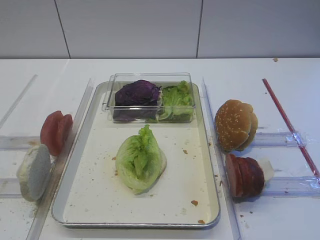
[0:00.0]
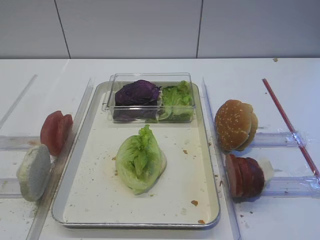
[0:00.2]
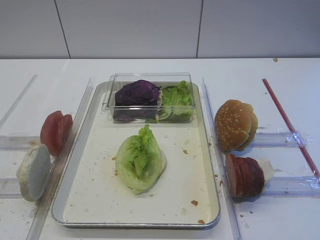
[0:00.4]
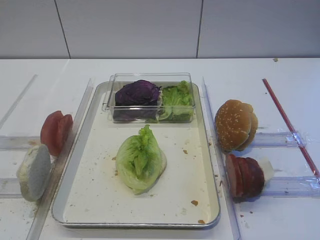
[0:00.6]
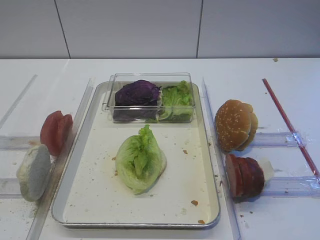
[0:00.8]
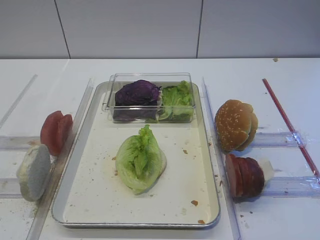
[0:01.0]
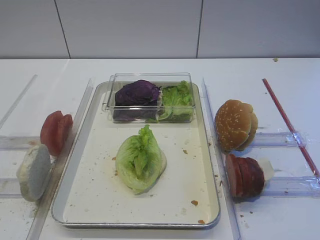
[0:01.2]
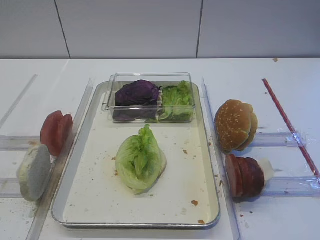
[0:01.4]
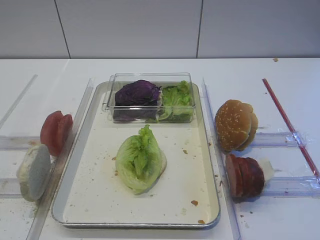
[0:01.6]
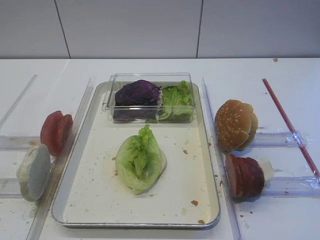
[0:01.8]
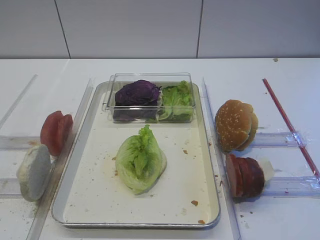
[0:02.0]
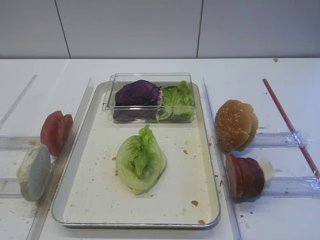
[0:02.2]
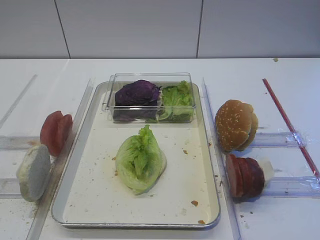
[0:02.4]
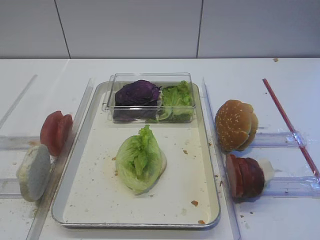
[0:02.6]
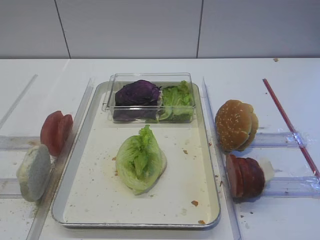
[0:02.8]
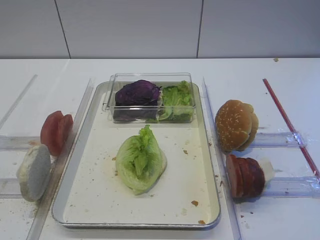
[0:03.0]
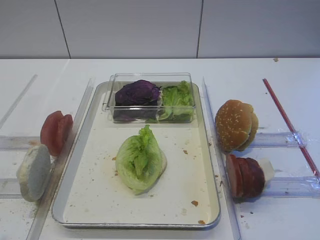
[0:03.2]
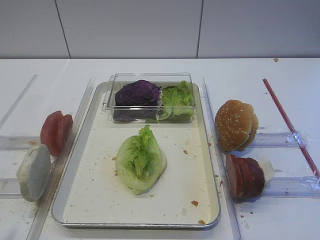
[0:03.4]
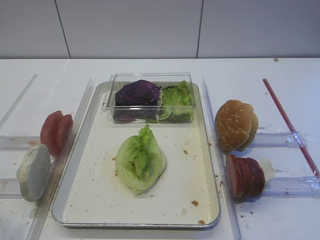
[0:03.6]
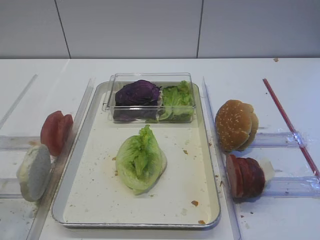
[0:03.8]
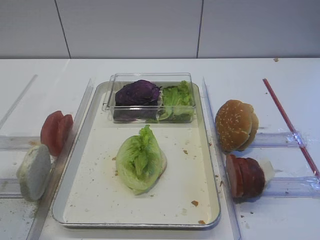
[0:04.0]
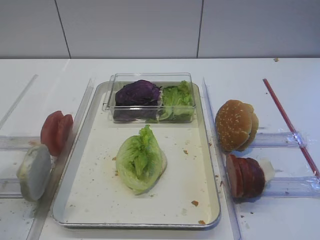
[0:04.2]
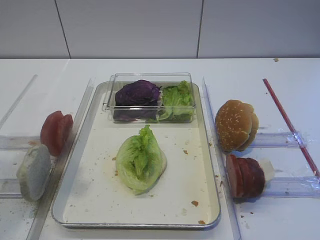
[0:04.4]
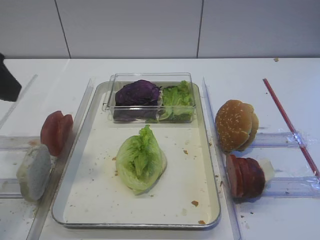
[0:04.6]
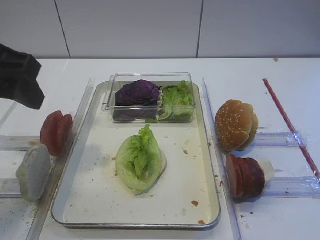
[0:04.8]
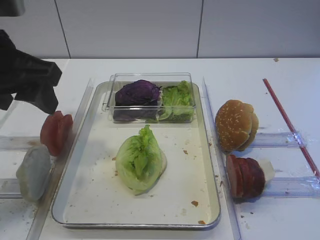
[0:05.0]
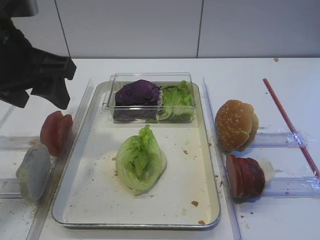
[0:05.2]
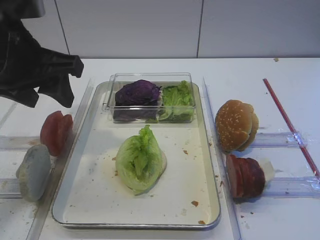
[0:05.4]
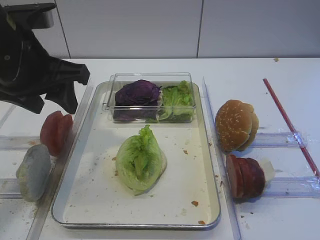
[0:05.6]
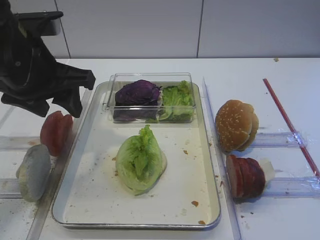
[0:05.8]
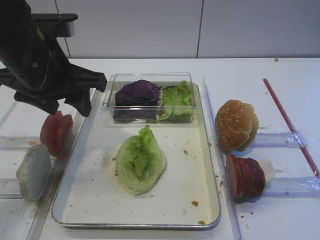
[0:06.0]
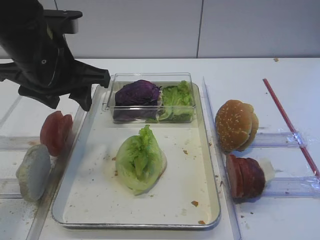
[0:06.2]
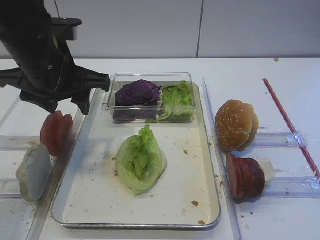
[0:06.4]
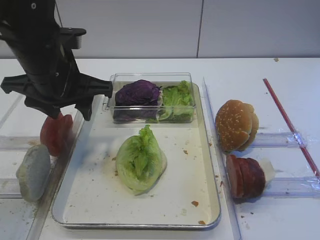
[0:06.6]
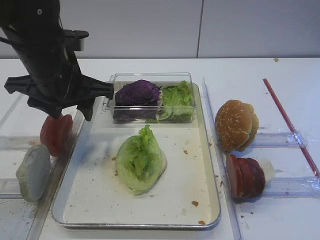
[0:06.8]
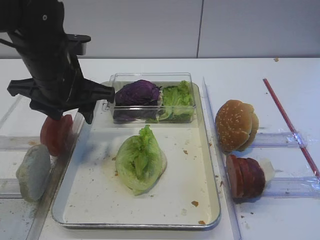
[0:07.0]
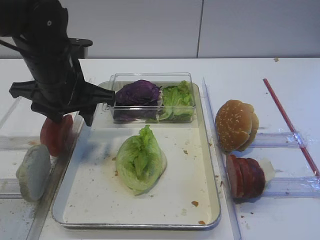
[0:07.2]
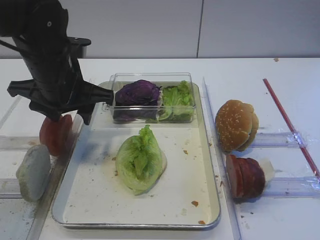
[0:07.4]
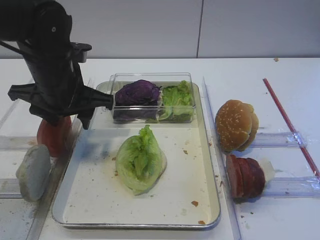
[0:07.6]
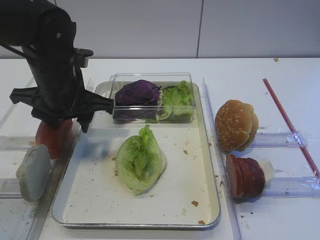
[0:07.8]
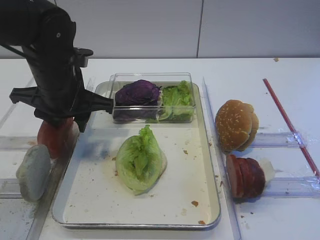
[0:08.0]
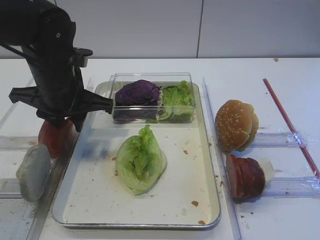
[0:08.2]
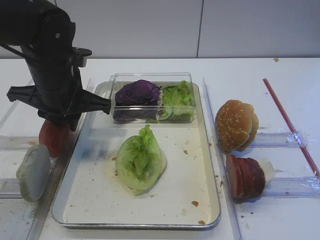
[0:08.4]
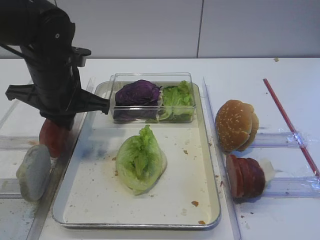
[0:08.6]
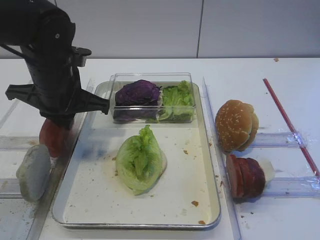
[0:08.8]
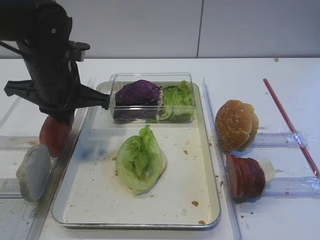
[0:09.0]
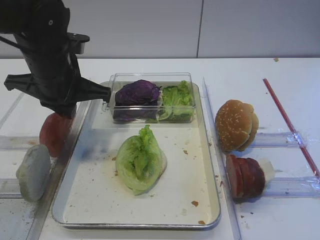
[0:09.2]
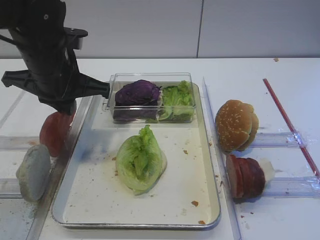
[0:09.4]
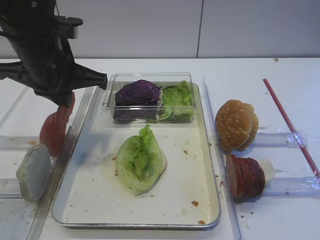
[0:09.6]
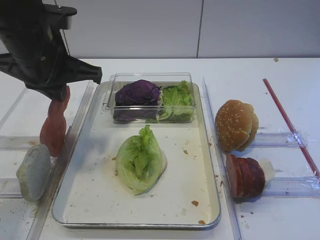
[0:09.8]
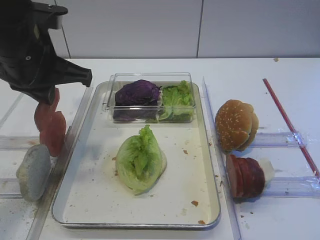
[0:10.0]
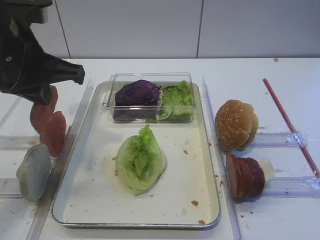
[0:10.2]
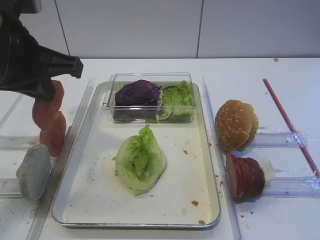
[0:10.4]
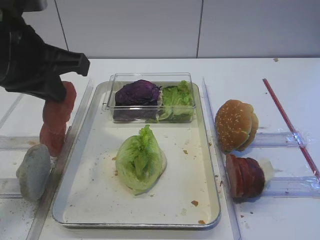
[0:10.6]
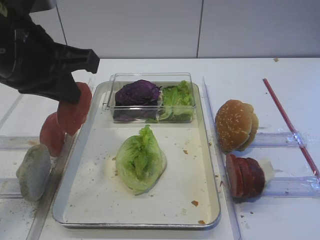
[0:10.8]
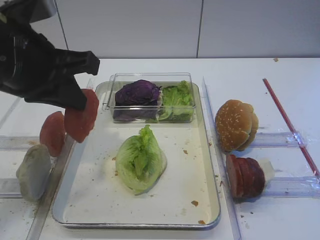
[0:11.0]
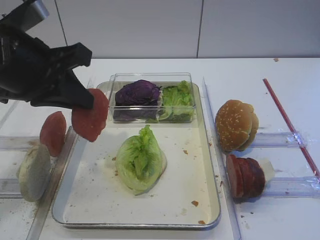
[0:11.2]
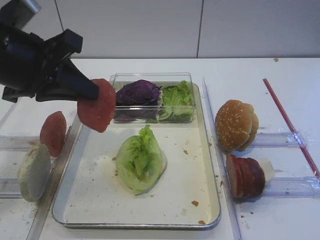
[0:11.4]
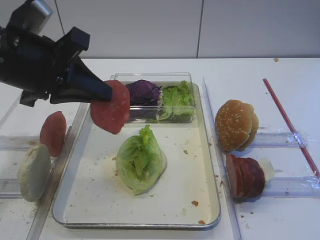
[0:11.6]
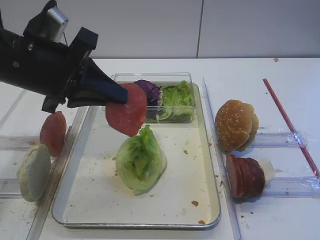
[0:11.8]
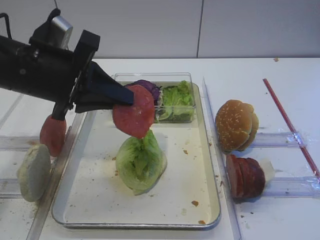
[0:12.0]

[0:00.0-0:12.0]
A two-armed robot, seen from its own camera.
Step, 0:00.0 to 0:09.4: Pick up the tomato slice with the left gripper.
0:01.6 to 0:03.0: Both grippers stay put.
0:03.0 to 0:04.4: The left gripper heads forward and upward, covering approximately 20 cm.
0:04.4 to 0:06.0: The left gripper is displaced forward, downward and to the right by approximately 20 cm.
0:06.0 to 0:07.6: The left gripper shifts about 5 cm downward.
0:07.6 to 0:09.0: The left gripper closes.
0:09.0 to 0:10.4: The left gripper heads upward and backward, covering roughly 10 cm.
0:10.4 to 0:12.0: The left gripper moves downward, roughly 5 cm.

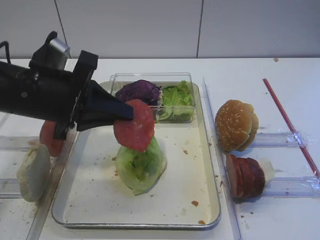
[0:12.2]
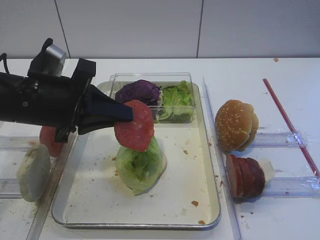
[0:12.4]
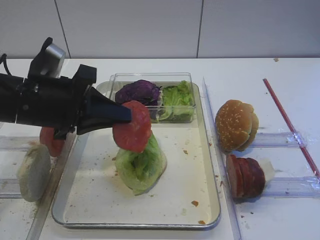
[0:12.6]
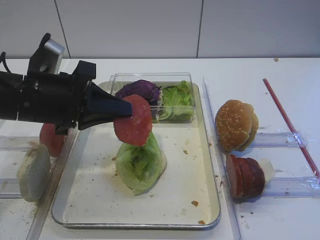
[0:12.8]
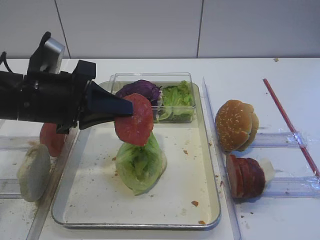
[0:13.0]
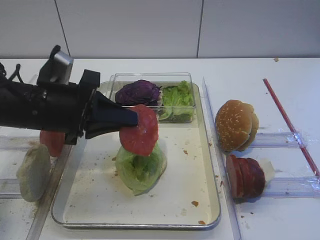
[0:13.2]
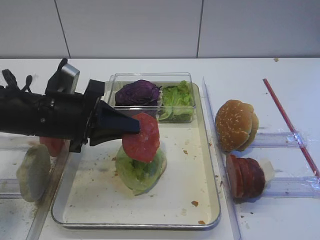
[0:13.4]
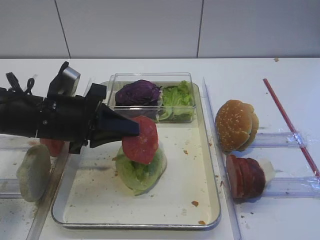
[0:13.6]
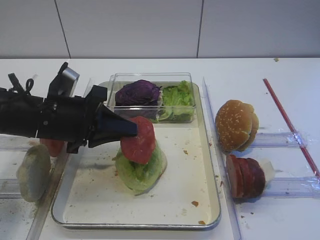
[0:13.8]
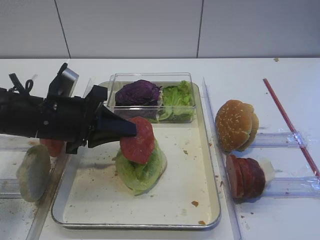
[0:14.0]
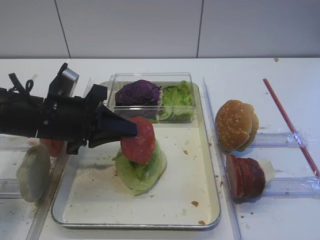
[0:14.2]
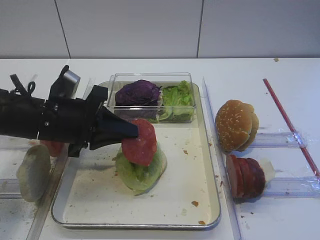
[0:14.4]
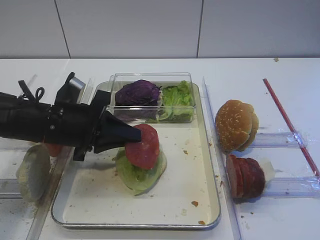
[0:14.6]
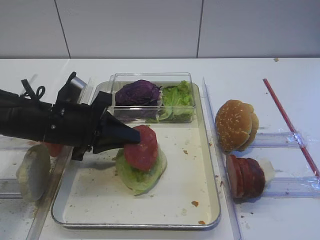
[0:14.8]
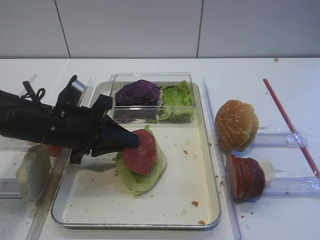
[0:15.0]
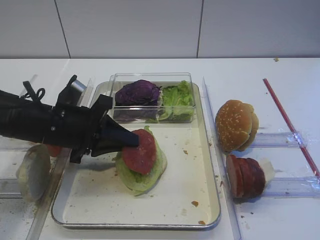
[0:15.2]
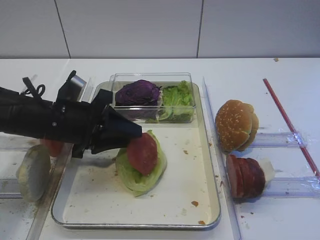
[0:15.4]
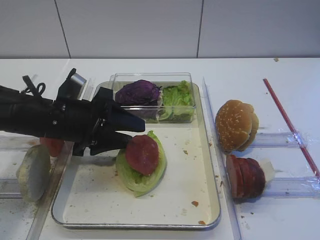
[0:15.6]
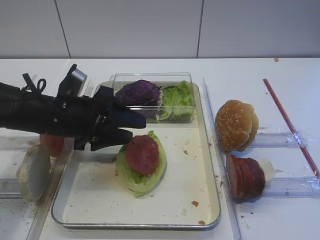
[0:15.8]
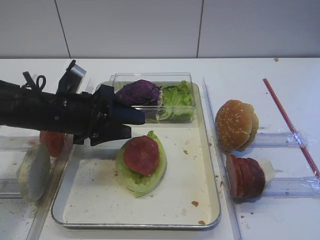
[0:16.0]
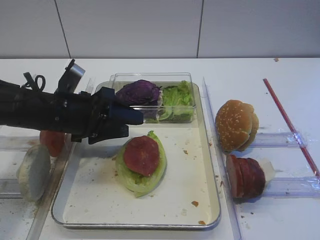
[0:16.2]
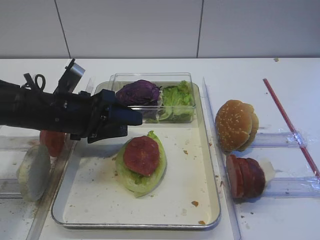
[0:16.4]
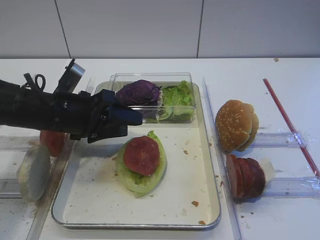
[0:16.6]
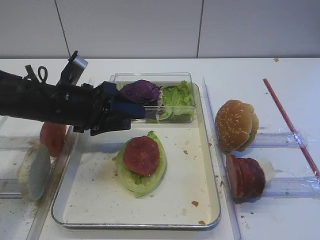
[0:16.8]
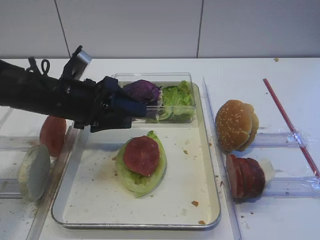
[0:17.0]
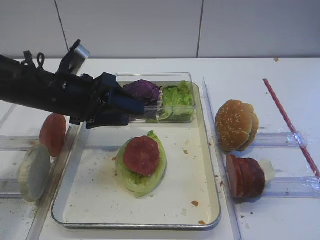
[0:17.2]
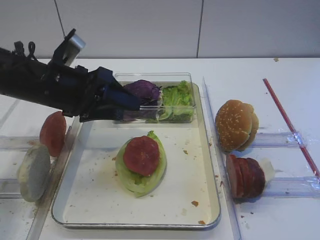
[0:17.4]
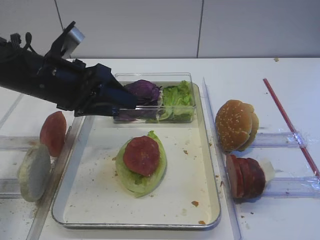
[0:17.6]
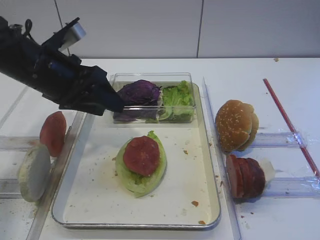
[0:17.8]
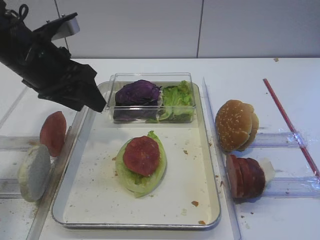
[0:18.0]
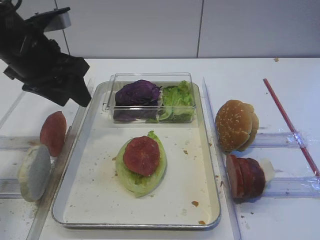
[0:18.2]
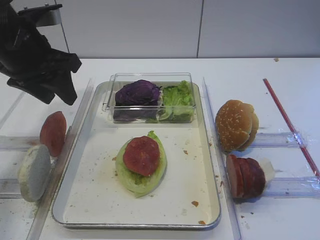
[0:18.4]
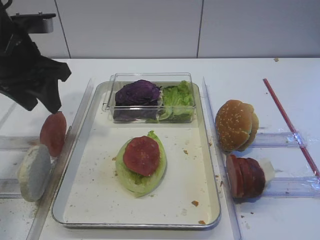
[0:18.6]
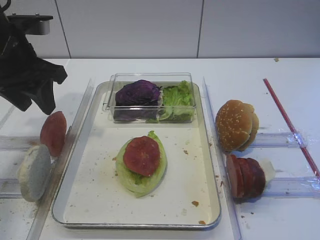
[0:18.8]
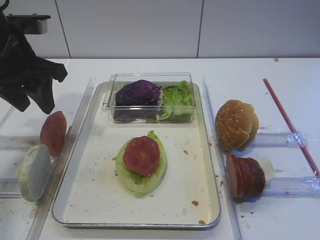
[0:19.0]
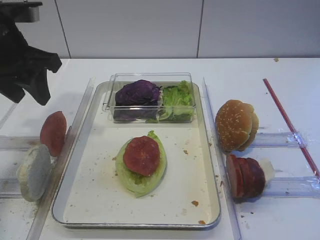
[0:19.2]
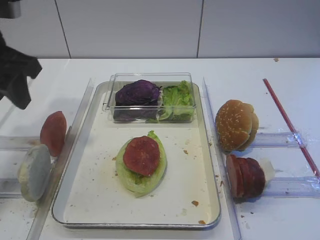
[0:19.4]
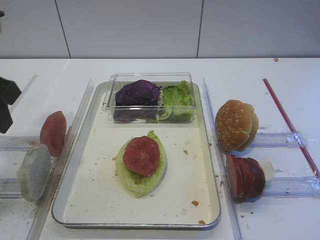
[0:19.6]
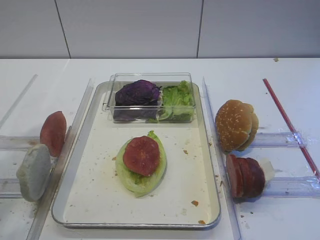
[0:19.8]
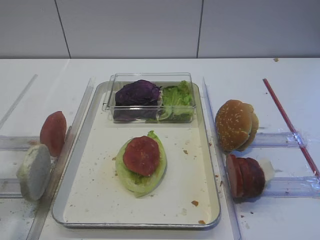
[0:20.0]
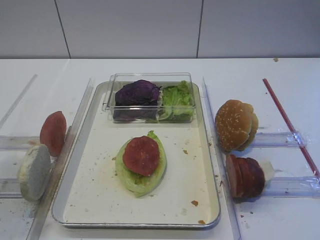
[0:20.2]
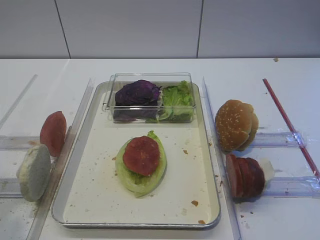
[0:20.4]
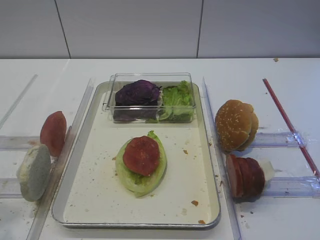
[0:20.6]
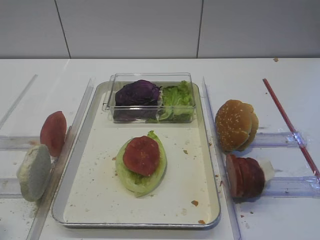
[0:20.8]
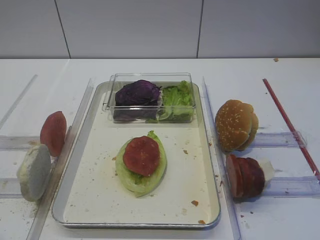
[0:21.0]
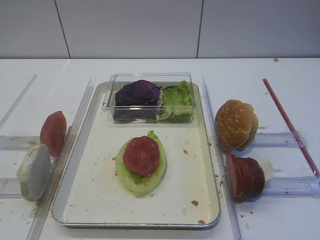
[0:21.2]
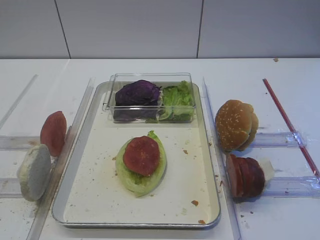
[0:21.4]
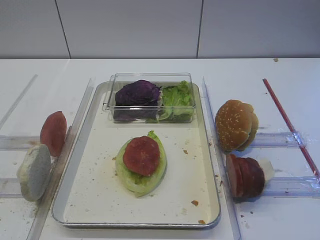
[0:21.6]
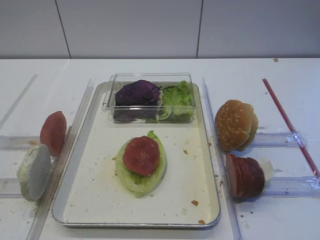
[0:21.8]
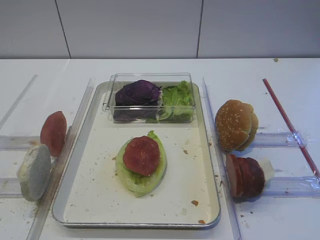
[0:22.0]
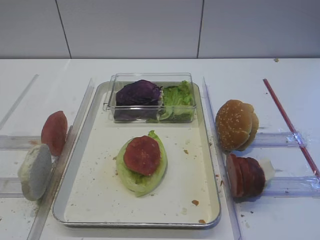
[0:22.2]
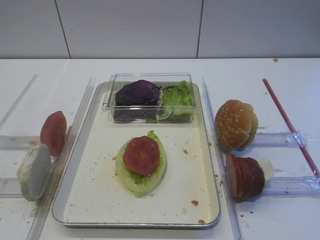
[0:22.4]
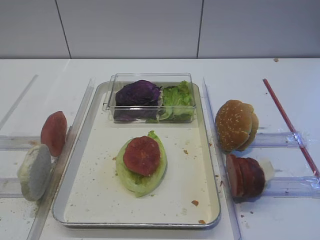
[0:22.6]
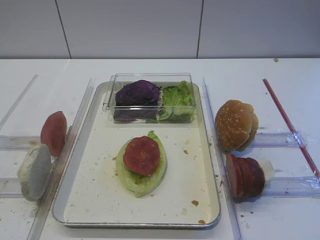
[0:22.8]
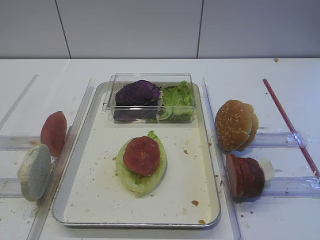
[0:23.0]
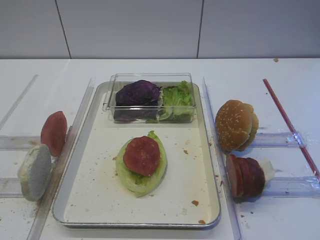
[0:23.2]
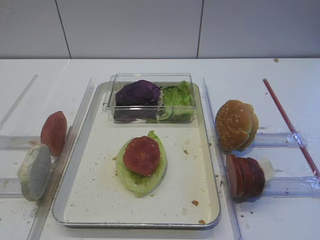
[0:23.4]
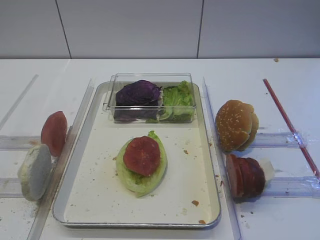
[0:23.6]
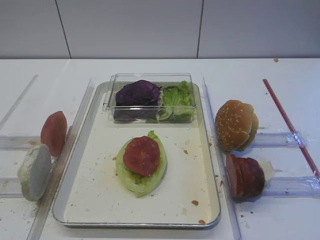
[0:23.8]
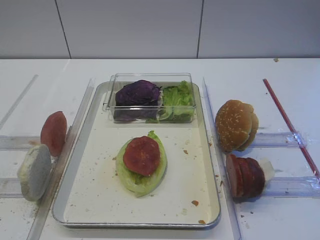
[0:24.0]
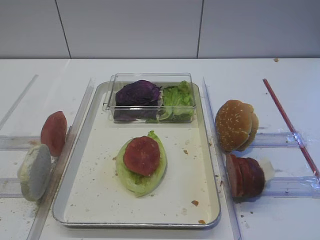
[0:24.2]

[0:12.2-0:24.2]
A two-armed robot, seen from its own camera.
Step, 0:12.2 to 0:16.6: Place the tomato slice on the lettuce leaf with the left gripper.
0:12.2 to 0:13.8: The left gripper goes approximately 5 cm downward.
0:13.8 to 0:15.2: There are only small adjustments of the grippers.
0:15.2 to 0:16.6: The left gripper opens its fingers.
0:16.6 to 0:18.2: The left gripper heads upward, covering some 10 cm.
0:18.2 to 0:19.8: The left gripper heads backward, covering some 15 cm.
0:19.8 to 0:21.2: The left gripper travels backward by about 20 cm.
0:22.6 to 0:24.2: Neither gripper changes place.
